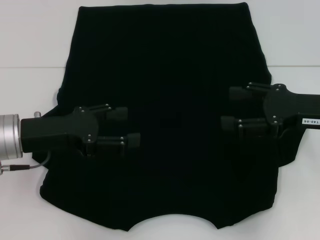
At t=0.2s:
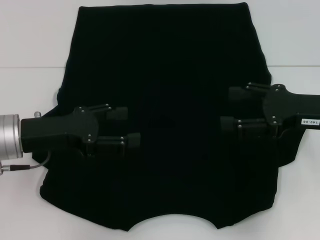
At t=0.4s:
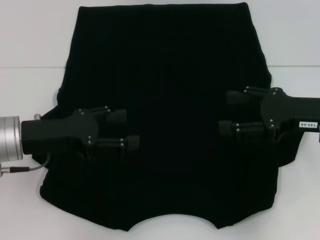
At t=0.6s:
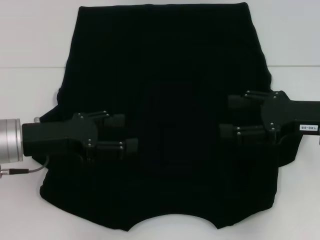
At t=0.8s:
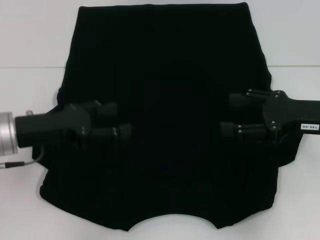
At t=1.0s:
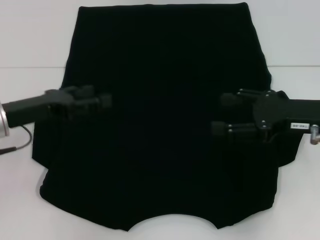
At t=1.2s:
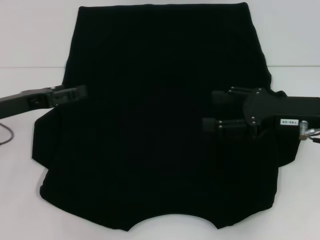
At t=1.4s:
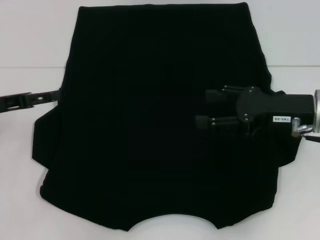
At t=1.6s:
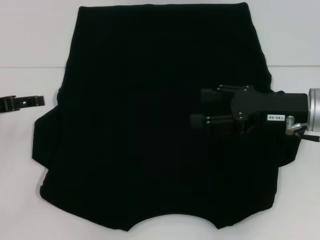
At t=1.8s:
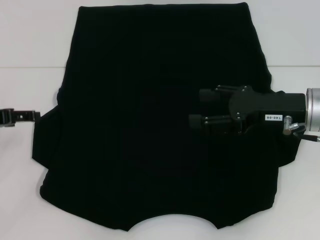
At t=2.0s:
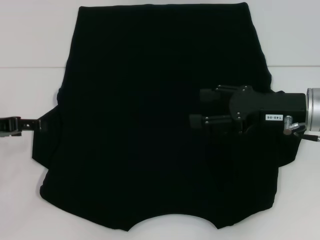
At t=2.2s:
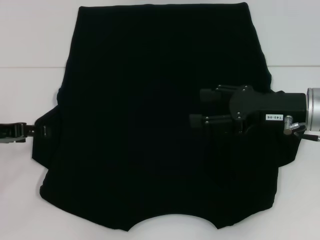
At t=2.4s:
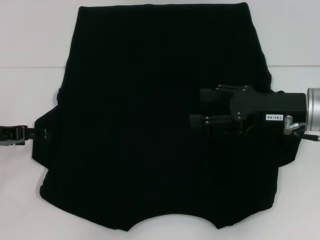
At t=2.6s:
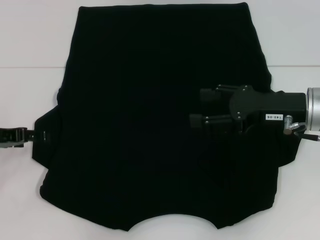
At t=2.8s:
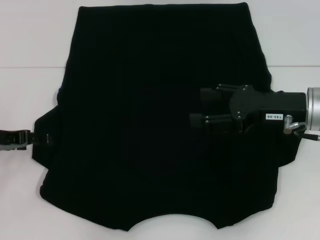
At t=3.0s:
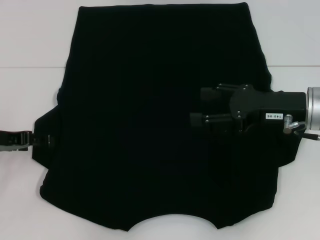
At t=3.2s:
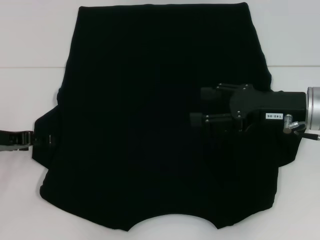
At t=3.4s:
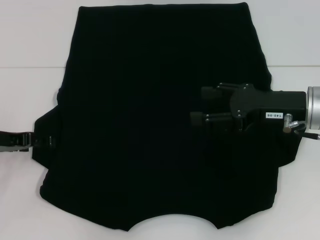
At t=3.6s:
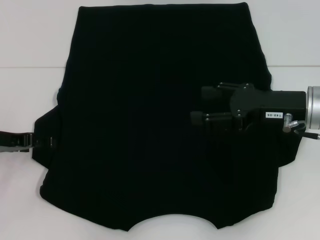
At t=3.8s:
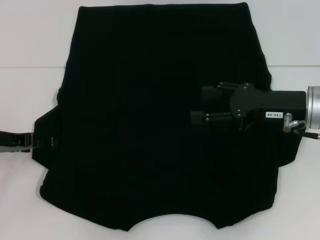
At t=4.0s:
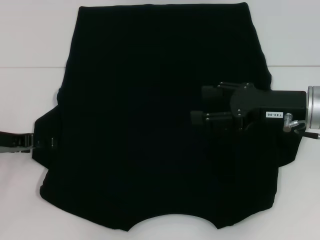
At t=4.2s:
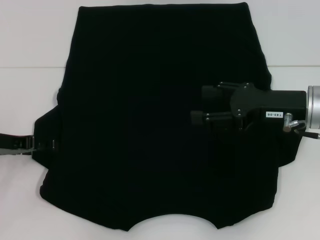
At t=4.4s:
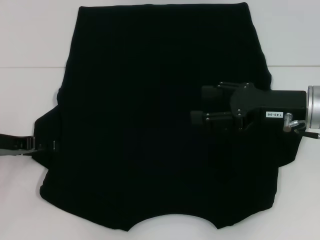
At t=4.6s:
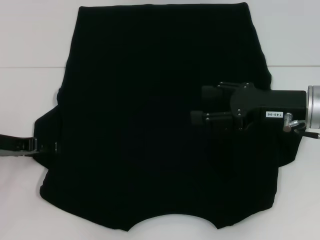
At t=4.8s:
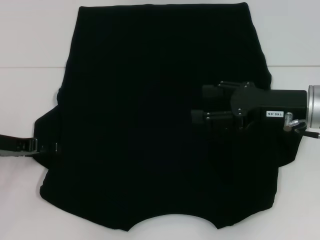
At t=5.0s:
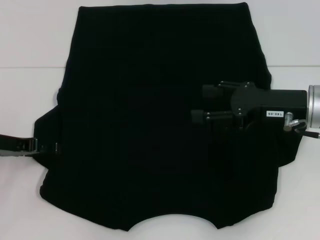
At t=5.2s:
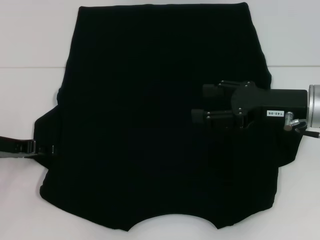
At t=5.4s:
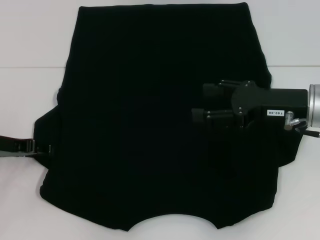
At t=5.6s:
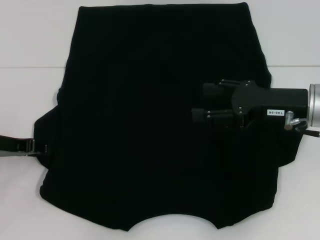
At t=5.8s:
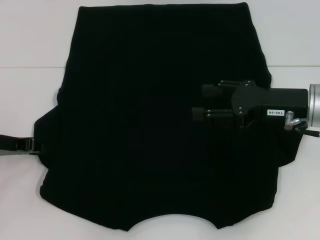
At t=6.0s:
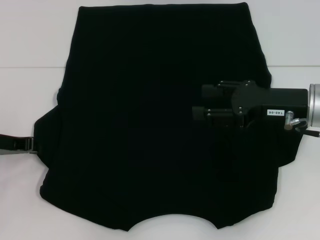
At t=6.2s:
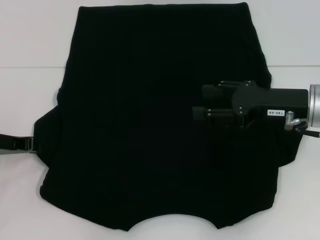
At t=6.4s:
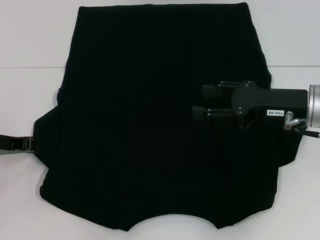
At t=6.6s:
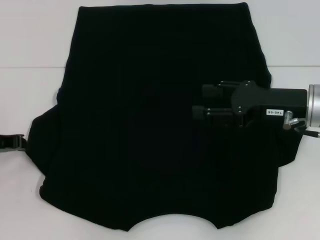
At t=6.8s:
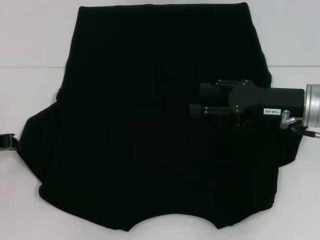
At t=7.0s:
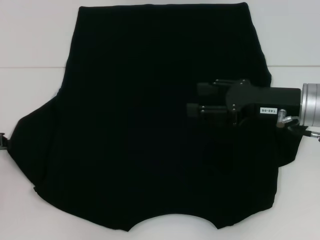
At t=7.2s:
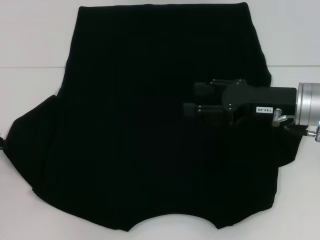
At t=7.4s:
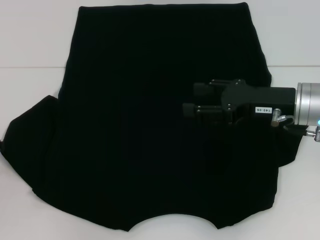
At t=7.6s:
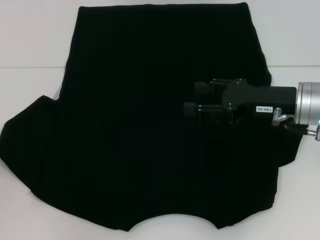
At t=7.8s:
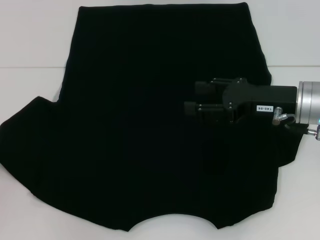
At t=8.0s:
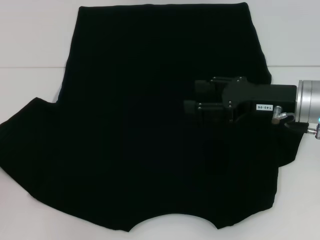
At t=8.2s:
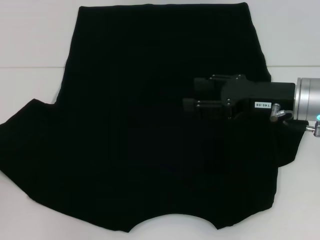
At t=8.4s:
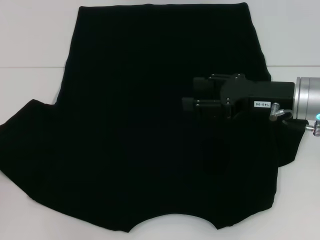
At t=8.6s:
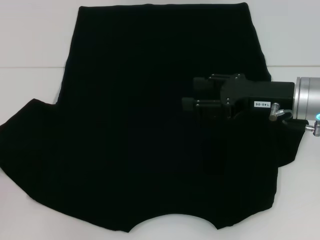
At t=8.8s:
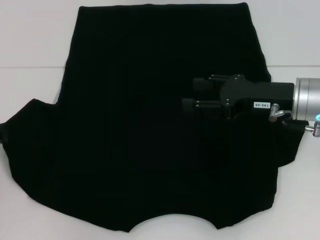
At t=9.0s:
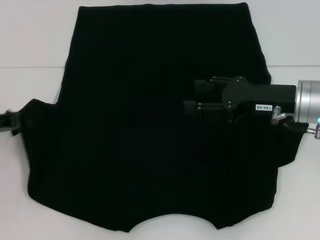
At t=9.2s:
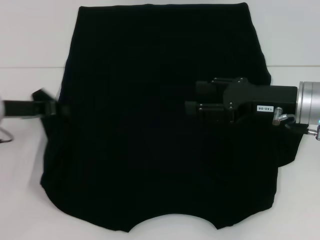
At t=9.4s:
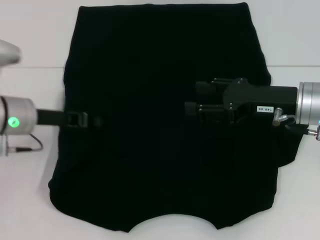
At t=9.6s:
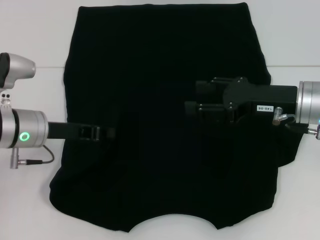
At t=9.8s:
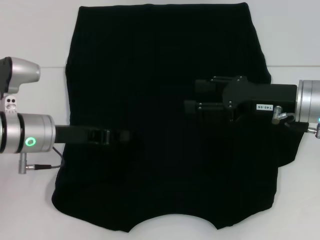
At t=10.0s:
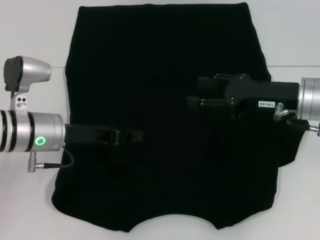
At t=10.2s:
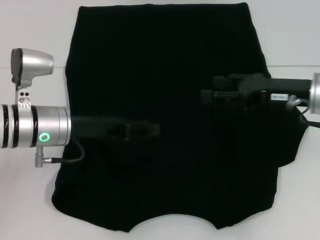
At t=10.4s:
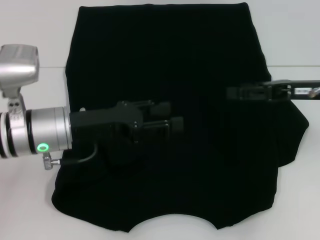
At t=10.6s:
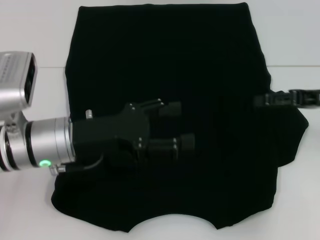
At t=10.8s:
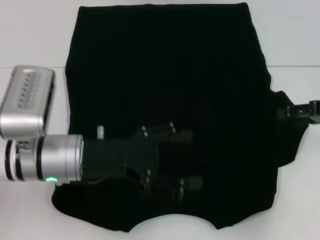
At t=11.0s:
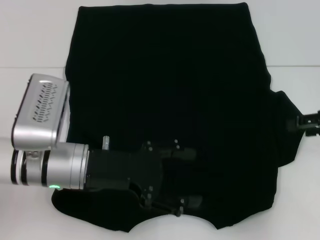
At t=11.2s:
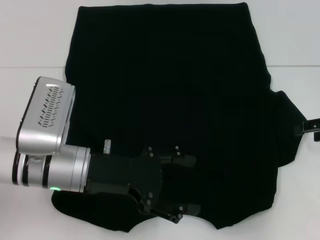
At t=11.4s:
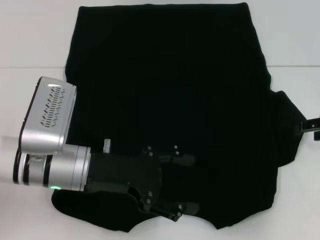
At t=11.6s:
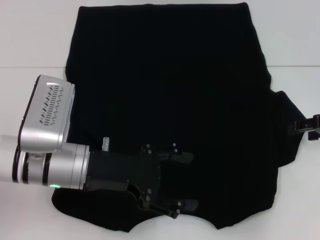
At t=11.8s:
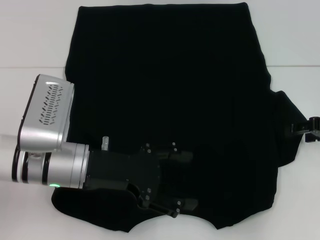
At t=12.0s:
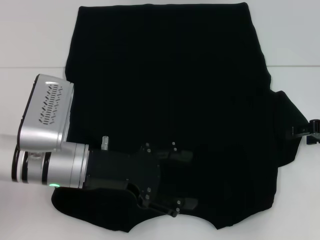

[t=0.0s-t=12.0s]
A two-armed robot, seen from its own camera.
Step, t=0.0s to t=10.0s: Fold the bottom left sleeve with your left hand.
t=0.0s to t=1.6s: The left gripper shifts approximately 10 cm to the left.
t=1.6s to t=3.0s: There are only small adjustments of the grippers.
t=3.0s to t=4.4s: Neither gripper changes place.
t=6.0s to t=7.6s: The left gripper shifts approximately 5 cm to the left.
t=7.6s to t=9.0s: The grippers move only a little.
t=9.0s to t=10.4s: The left gripper moves to the right, some 15 cm, and opens, while the right gripper travels to the right by about 5 cm.
t=10.4s to t=12.0s: The left gripper opens its fingers. The right gripper goes approximately 5 cm to the right.

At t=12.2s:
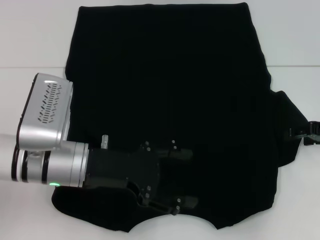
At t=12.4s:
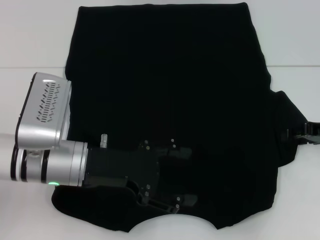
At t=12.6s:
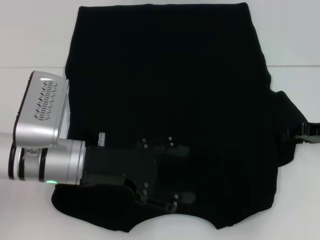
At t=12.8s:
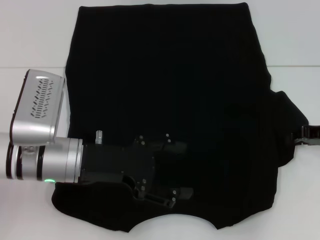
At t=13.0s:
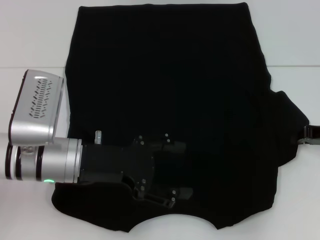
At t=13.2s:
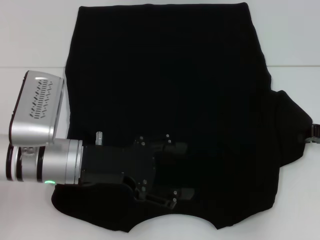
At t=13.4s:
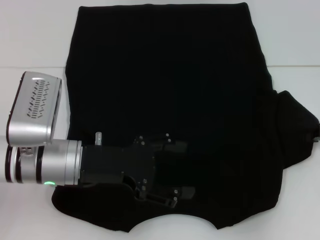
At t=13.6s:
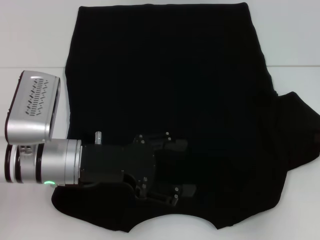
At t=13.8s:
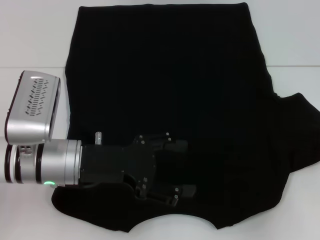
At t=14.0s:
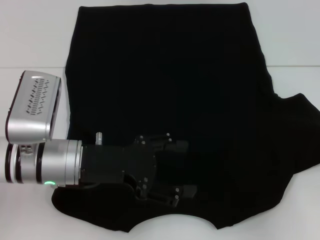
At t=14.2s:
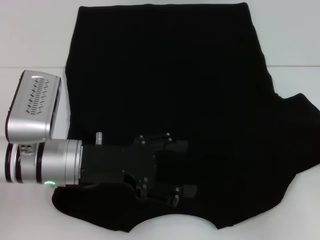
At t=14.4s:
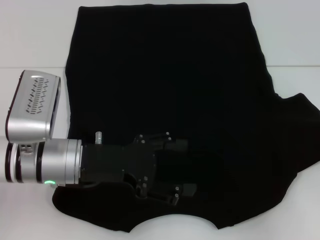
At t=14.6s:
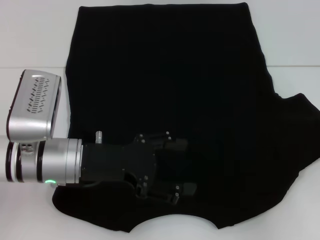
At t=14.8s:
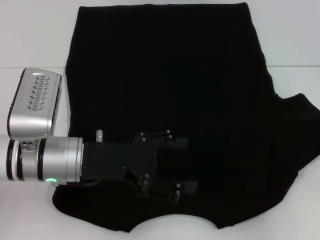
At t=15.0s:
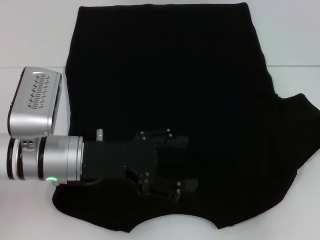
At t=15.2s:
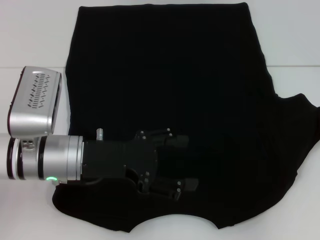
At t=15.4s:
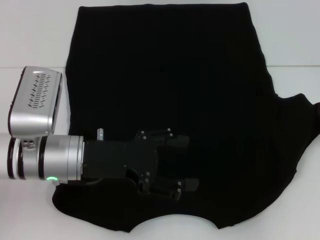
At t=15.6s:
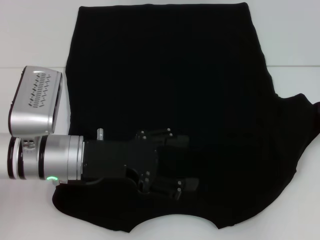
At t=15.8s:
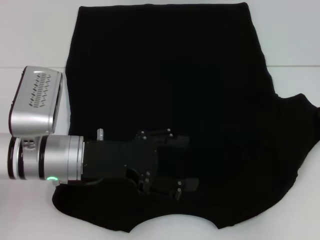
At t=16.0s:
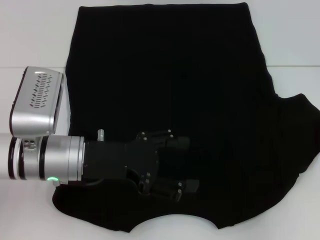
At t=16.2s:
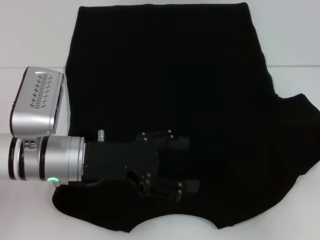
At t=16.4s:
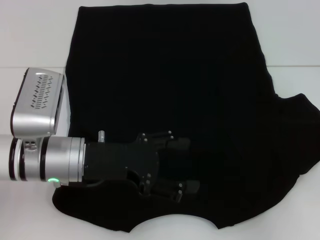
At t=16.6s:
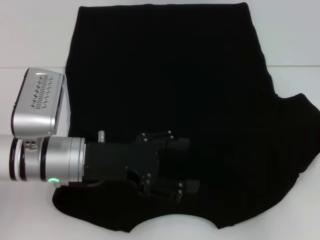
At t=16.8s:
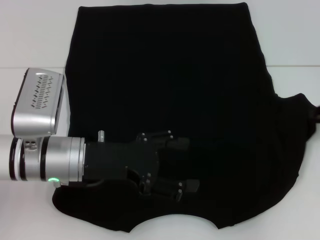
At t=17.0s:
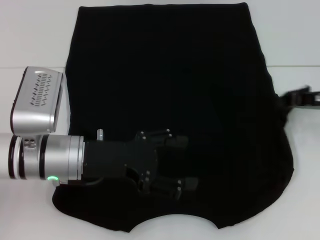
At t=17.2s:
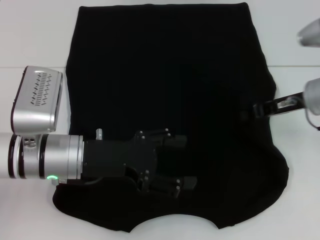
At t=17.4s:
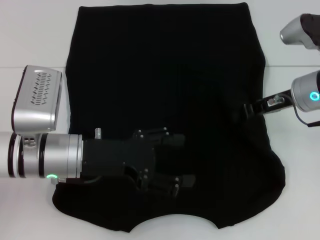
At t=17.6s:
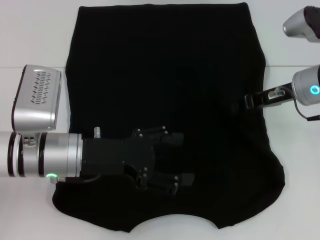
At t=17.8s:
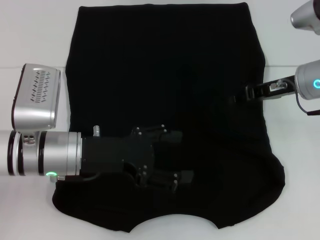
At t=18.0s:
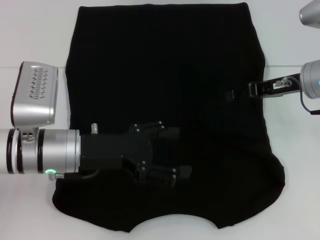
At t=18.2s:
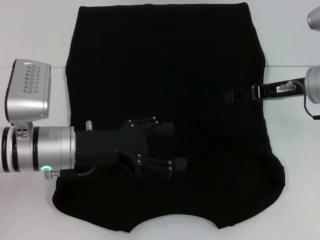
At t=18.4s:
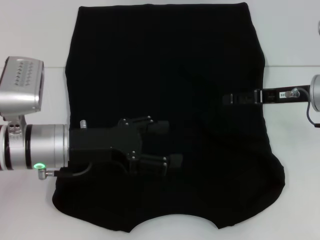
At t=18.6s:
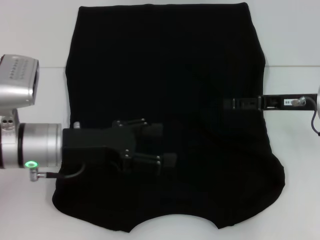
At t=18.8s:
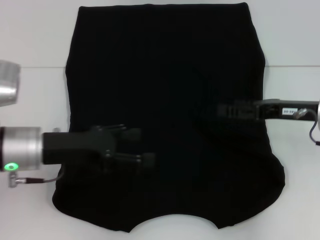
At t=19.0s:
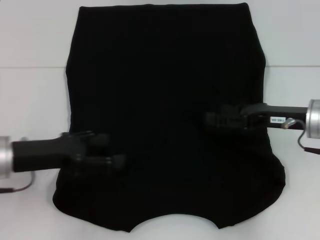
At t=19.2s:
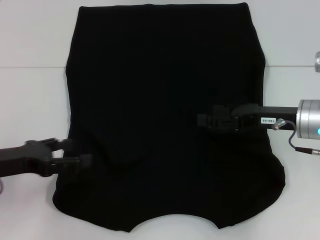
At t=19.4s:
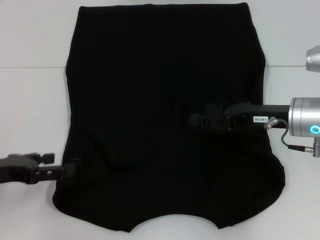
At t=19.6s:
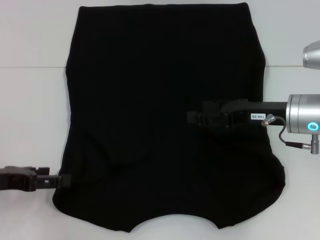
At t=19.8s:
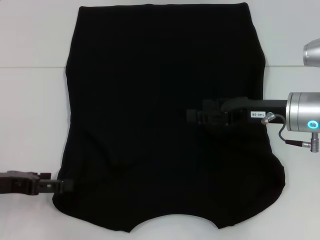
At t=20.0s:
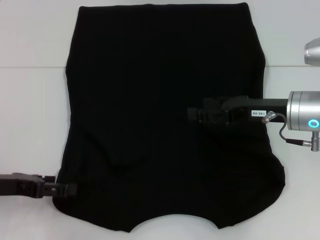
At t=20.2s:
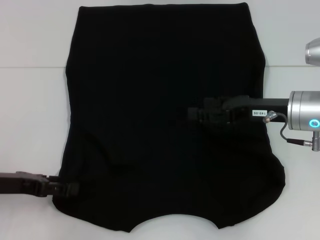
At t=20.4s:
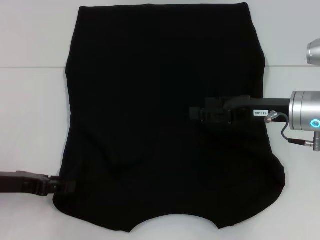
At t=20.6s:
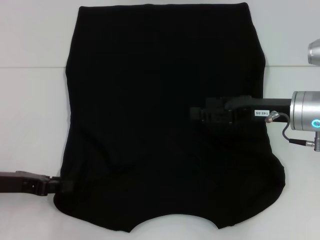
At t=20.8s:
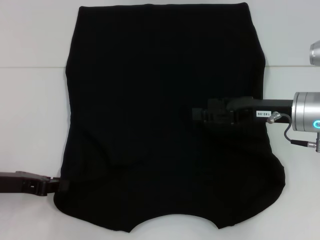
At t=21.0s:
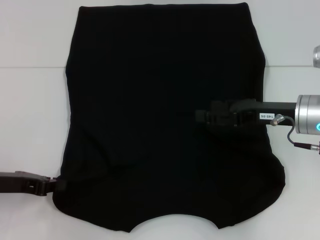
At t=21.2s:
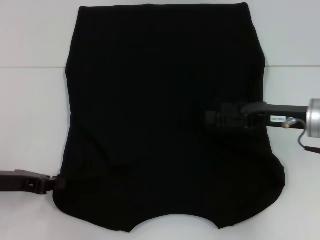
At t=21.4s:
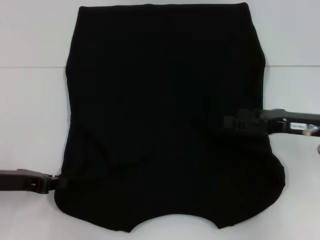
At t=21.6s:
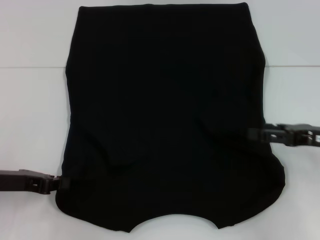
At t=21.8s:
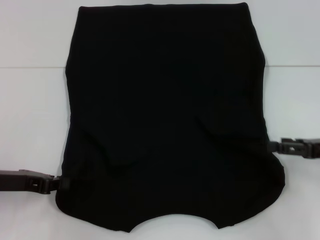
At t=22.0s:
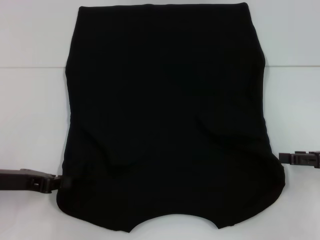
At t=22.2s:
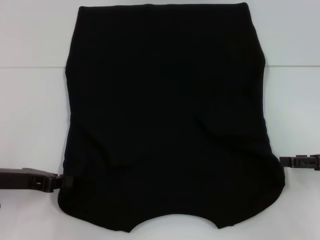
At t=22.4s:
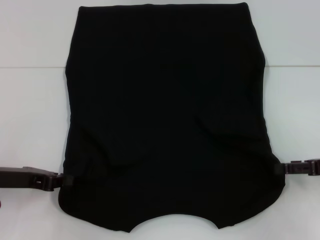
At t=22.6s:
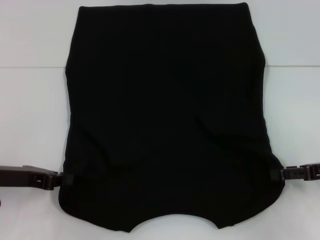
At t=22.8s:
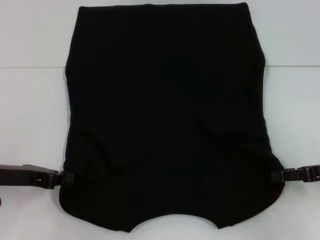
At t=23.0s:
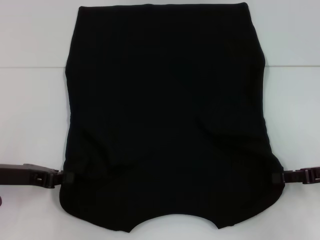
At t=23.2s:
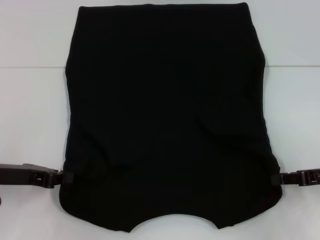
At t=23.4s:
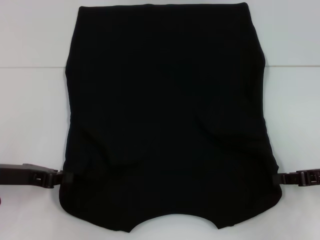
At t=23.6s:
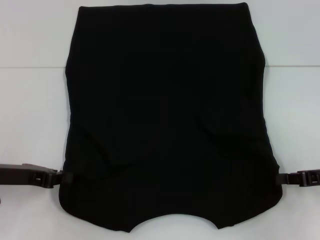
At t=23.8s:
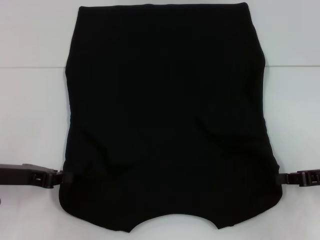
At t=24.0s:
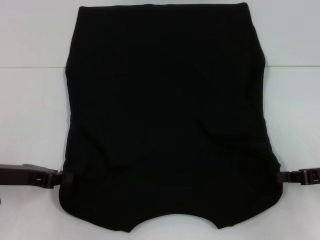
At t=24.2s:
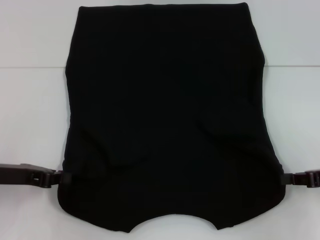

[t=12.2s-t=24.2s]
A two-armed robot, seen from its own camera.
Step, t=12.2s to t=18.0s: Fold the bottom right sleeve with your right hand.
Step, t=18.2s to t=21.4s: Grab the bottom left corner with your left hand.
Step, t=21.6s to t=24.0s: Grab the bottom right corner with your right hand.
t=12.2s to t=13.8s: The right gripper closes.
t=13.8s to t=16.6s: There are only small adjustments of the grippers.
t=16.6s to t=18.2s: The right gripper heads to the left, covering roughly 15 cm, and opens up.
t=18.2s to t=19.8s: The left gripper heads to the left, covering some 15 cm, while the right gripper shifts by approximately 5 cm, and opens.
t=19.8s to t=21.2s: The left gripper closes its fingers.
t=21.2s to t=22.6s: The right gripper travels to the right by approximately 10 cm.
t=22.6s to t=24.2s: The right gripper closes its fingers.
